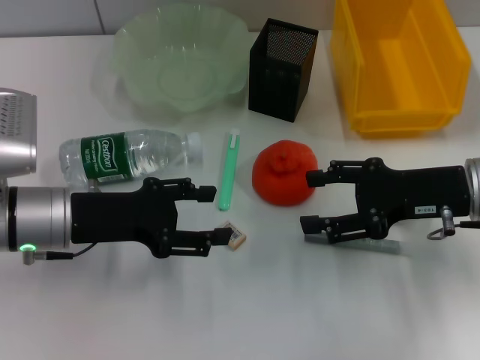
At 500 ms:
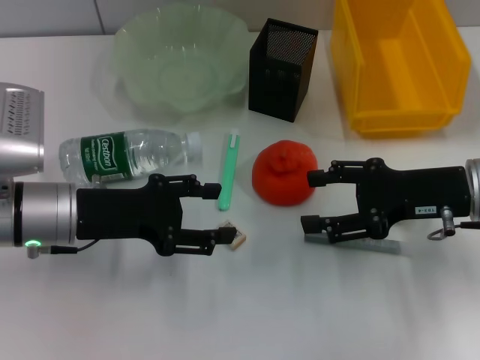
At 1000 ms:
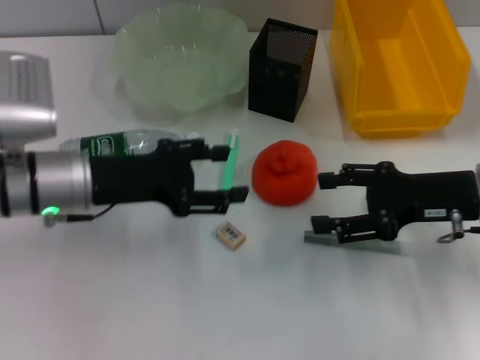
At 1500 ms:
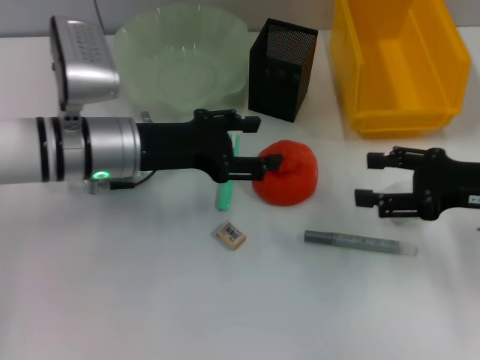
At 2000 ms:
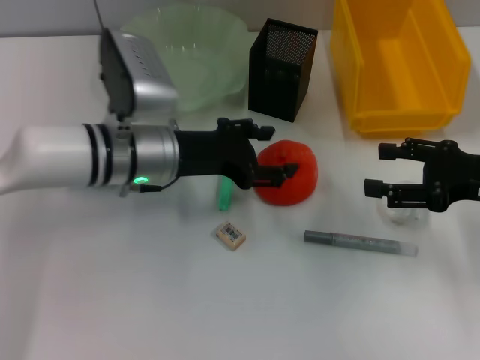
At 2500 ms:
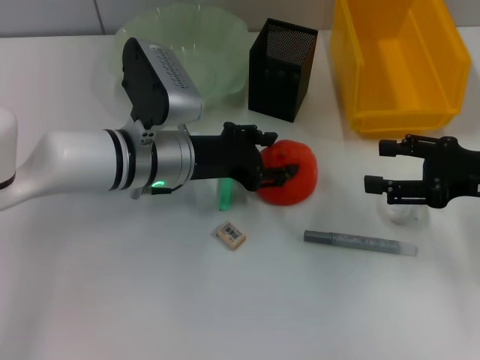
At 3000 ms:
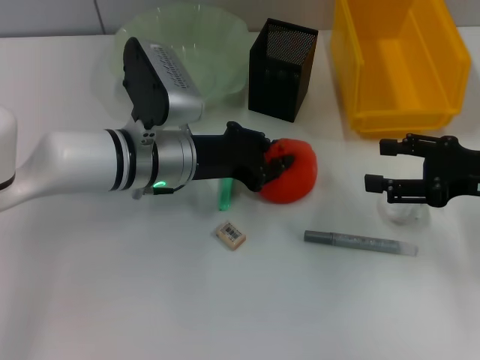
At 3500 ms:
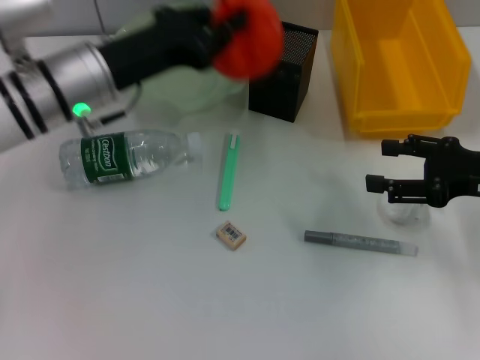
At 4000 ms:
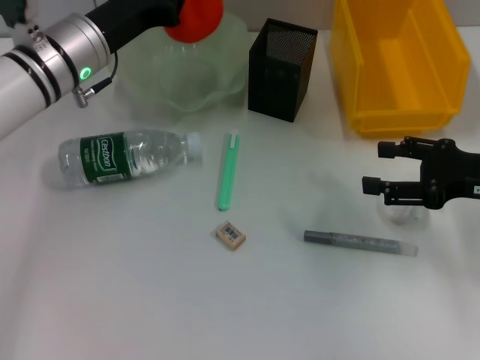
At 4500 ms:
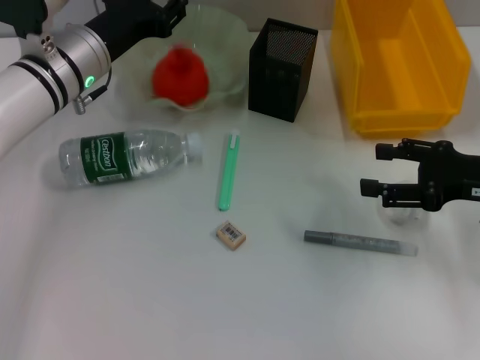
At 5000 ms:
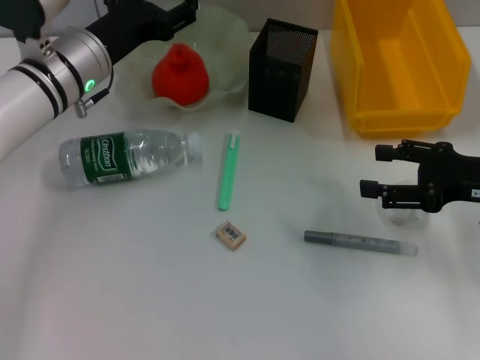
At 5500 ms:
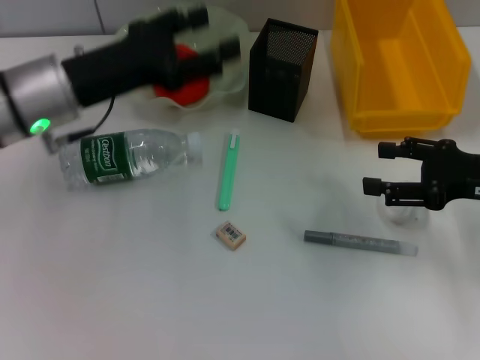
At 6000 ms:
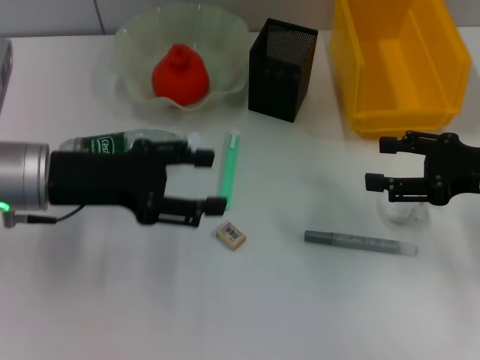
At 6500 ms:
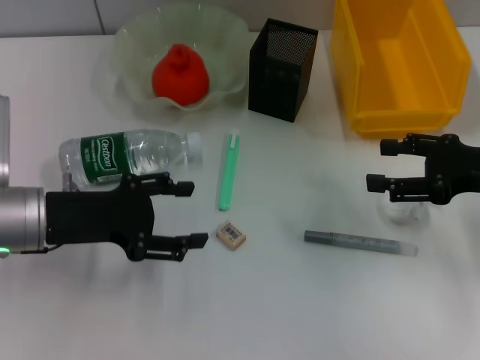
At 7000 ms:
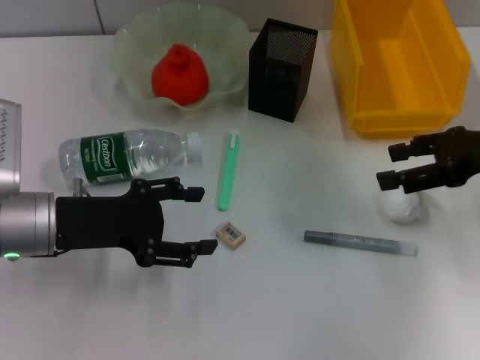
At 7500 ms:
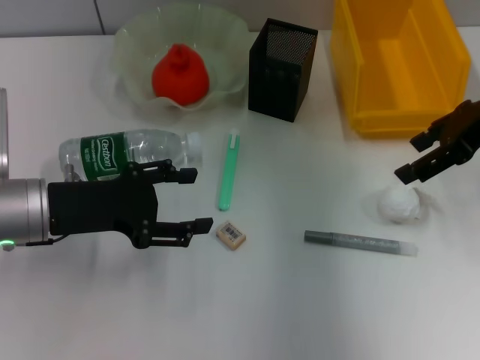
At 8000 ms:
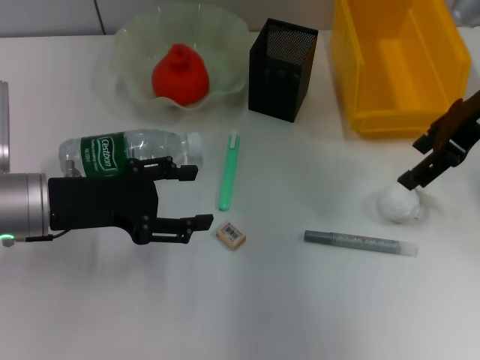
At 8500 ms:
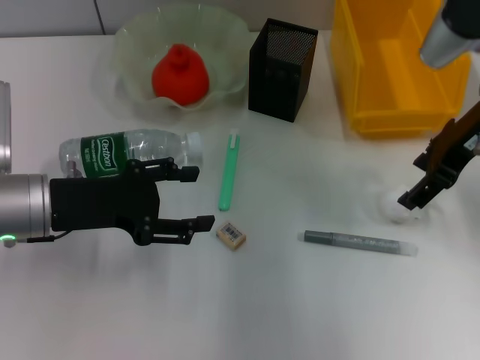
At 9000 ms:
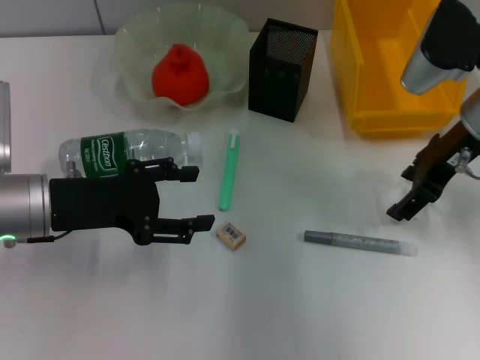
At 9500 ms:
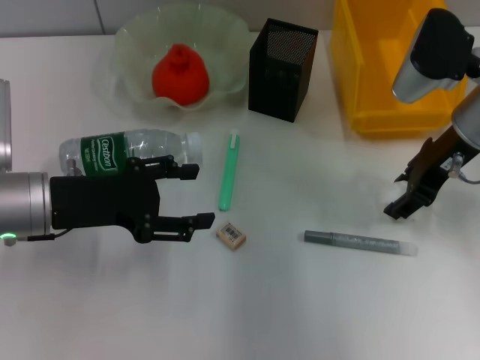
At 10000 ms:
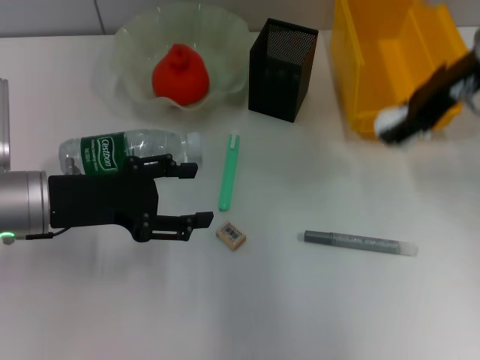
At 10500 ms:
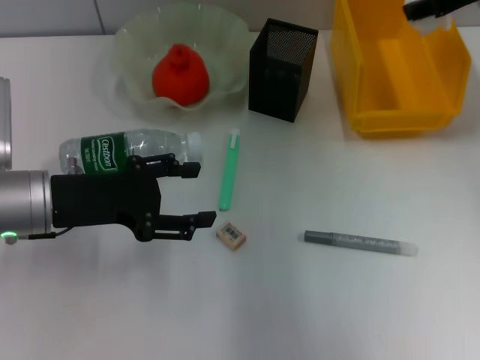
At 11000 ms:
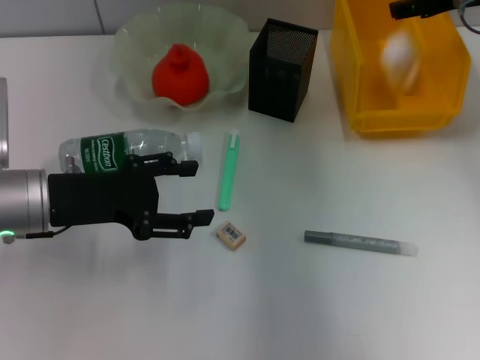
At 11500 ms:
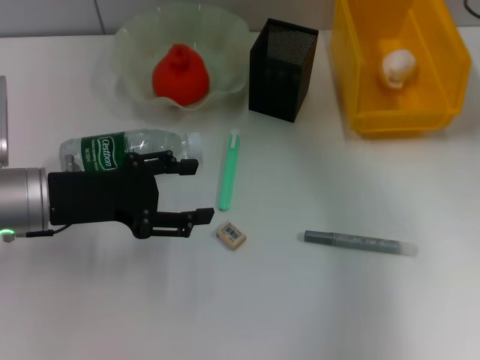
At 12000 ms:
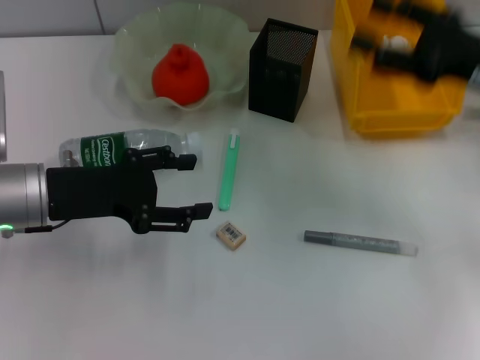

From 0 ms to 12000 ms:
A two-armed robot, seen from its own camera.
Step, from 0 ms to 2500 ms: Grab the orange with the left hand.
Step, from 3500 ms to 4500 ms: Place the orange into the fruit bowl with the left hand.
Step, from 5000 ms to 9000 ms: Grab the paper ball with the right hand.
Step, from 10000 ms to 11000 ms: Place the paper ball into the trash can with the right hand.
From 0 ms to 2000 ms: The right gripper is displaced to the right by some 5 cm. Meanwhile the left gripper goes roughly 10 cm to the right and forward.
From 2000 ms to 4000 ms: The left gripper heads forward and to the left, covering about 10 cm, and closes up.
From 4000 ms to 6000 ms: The left gripper is displaced backward by roughly 10 cm, and opens up.
From 6000 ms to 8000 ms: The right gripper heads upward, forward and to the left, covering some 15 cm.
From 8000 ms to 10000 ms: The right gripper goes downward and returns, some 5 cm each way.
From 10000 ms to 12000 ms: The right gripper is displaced downward and to the right by some 10 cm, and opens up.

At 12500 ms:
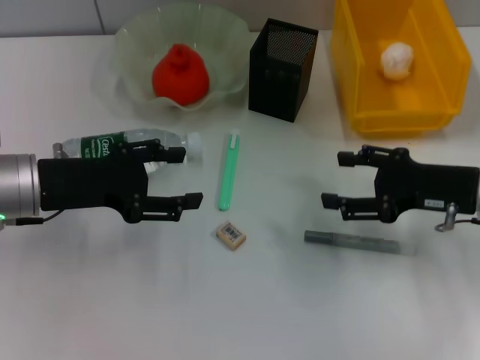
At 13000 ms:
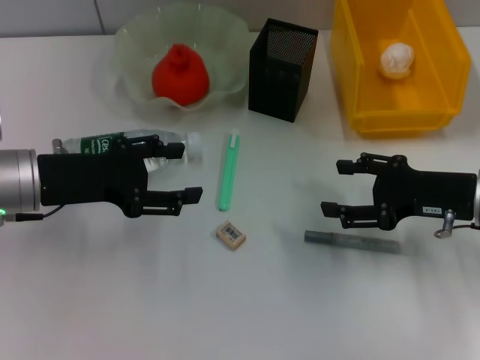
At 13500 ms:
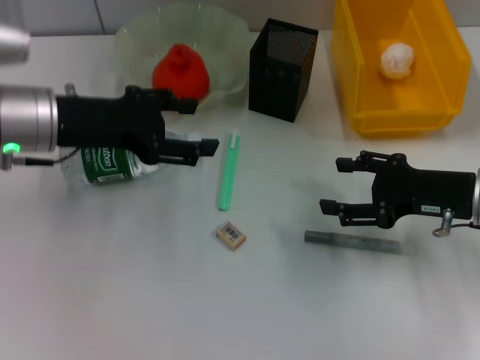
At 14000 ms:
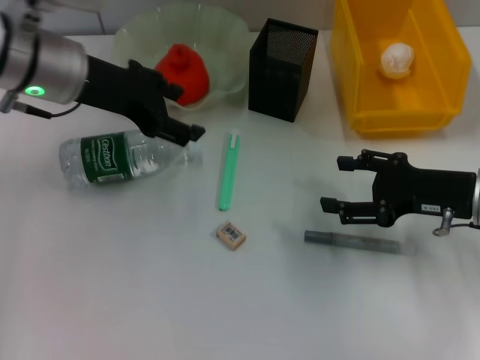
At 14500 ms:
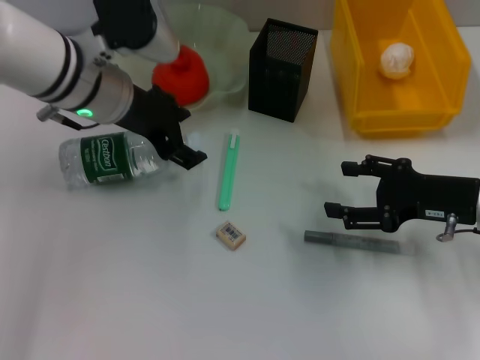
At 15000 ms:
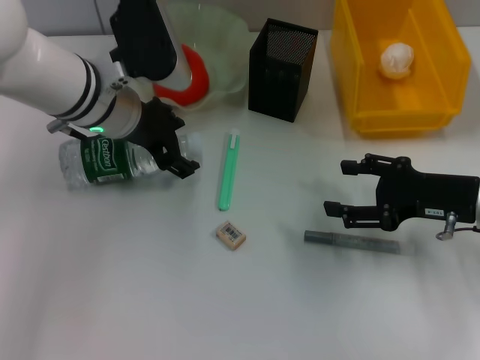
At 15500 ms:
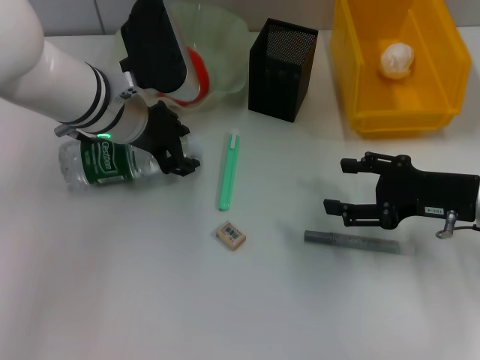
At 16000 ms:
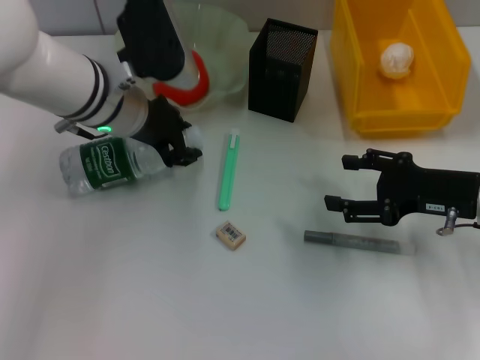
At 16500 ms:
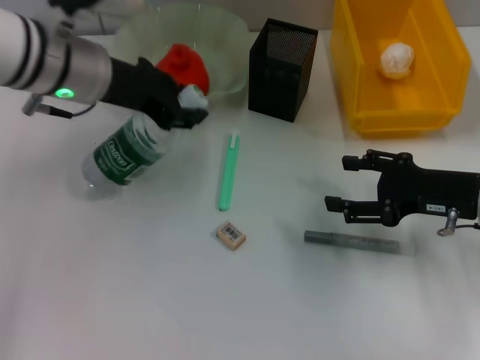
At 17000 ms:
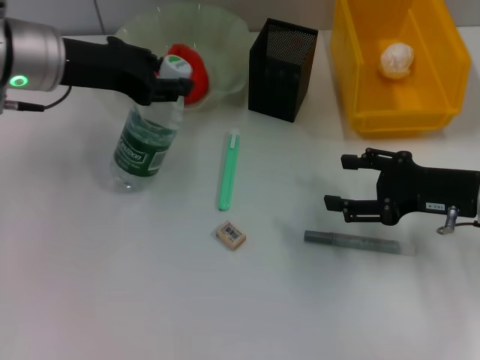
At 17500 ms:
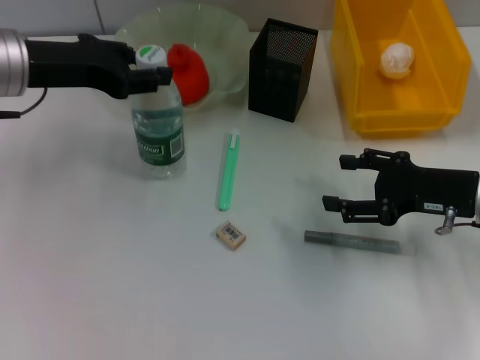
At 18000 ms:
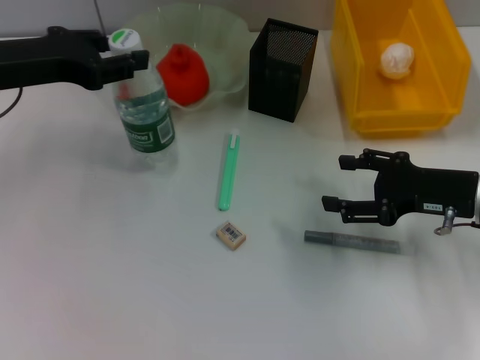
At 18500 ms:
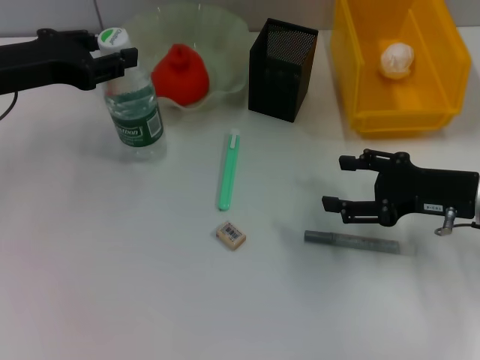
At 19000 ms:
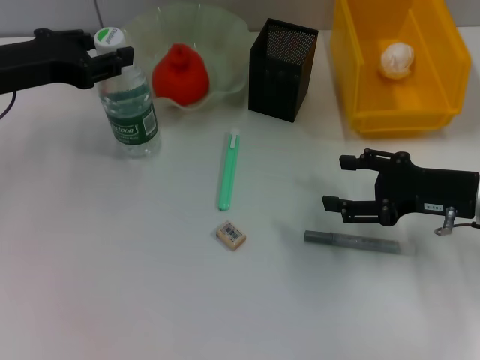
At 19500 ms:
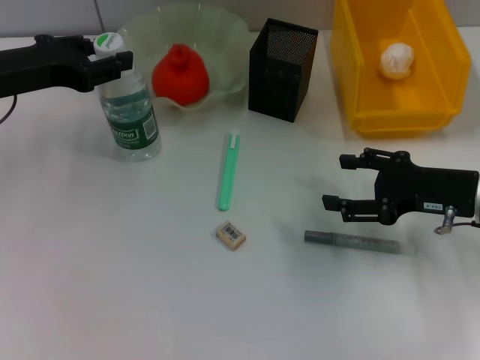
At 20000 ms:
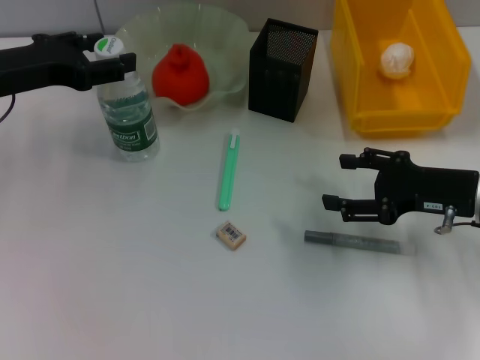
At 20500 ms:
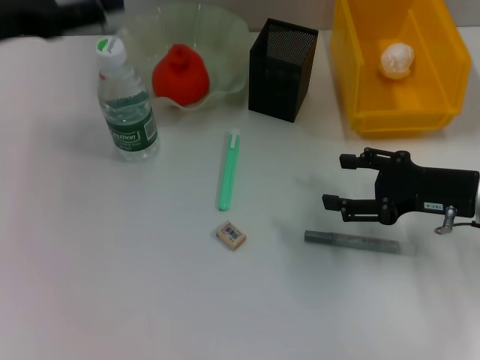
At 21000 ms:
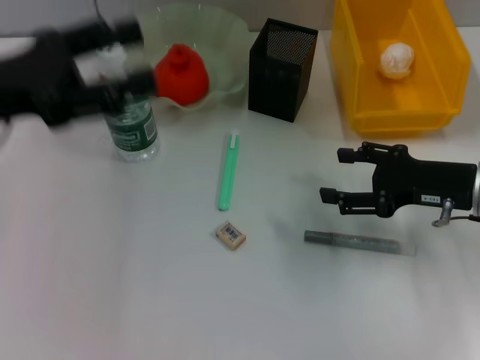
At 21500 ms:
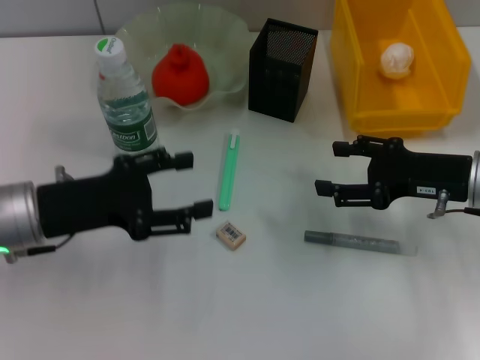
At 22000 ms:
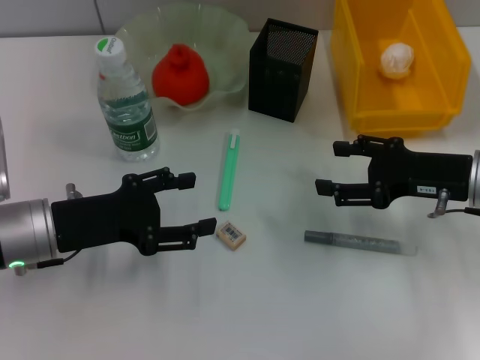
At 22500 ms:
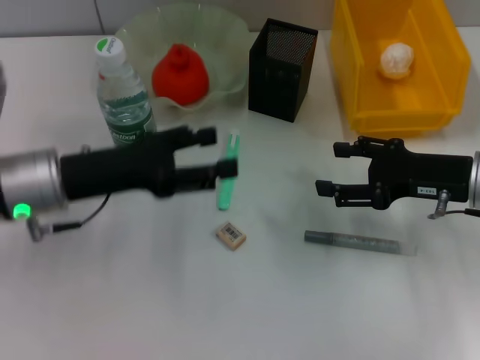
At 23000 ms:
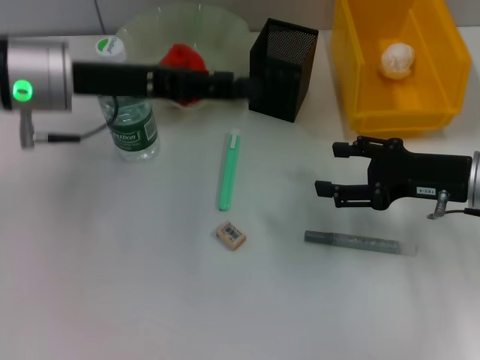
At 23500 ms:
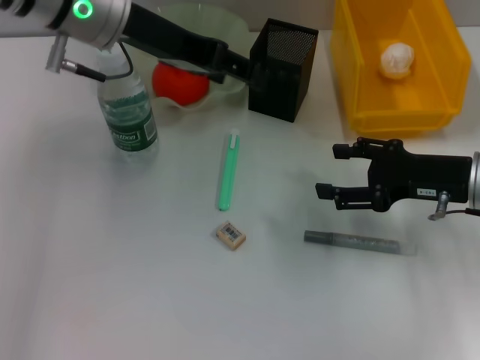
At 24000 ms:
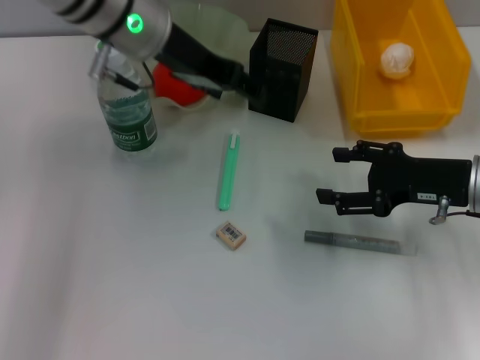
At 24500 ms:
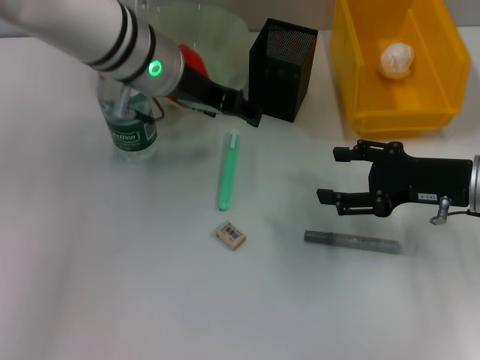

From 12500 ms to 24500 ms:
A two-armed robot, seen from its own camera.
Step, from 12500 ms to 15500 ms: Grab the water bottle with the left hand.
Step, from 16000 ms to 20000 ms: Place the water bottle on the table with the left hand.
From 12500 ms to 14500 ms: The left gripper travels to the right, forward and upward by roughly 15 cm.
From 14500 ms to 16500 ms: The left gripper closes its fingers.
From 16500 ms to 18500 ms: The left gripper moves to the left, about 10 cm.
From 18500 ms to 20500 ms: The left gripper opens its fingers.
From 20500 ms to 22500 ms: The left gripper shifts about 15 cm downward, backward and to the right.
From 22500 ms to 24500 ms: The left gripper is displaced to the right, forward and upward by approximately 20 cm.

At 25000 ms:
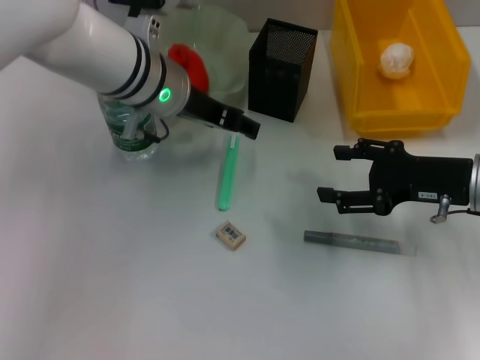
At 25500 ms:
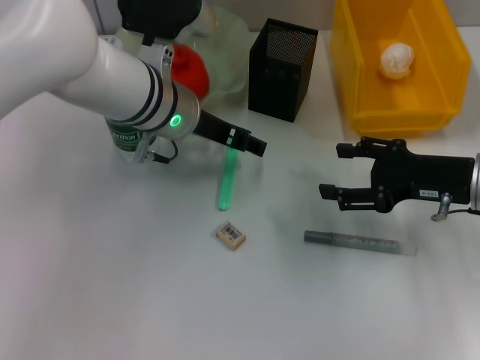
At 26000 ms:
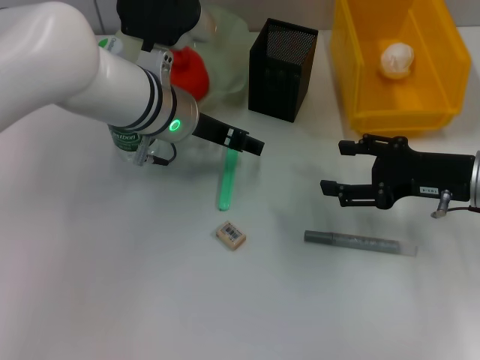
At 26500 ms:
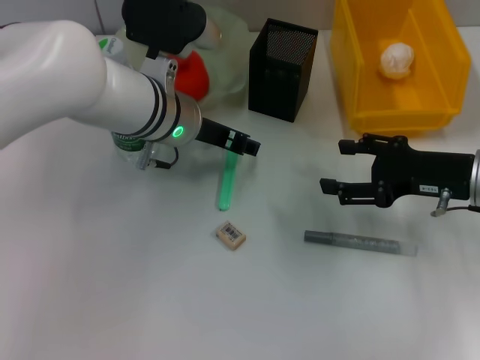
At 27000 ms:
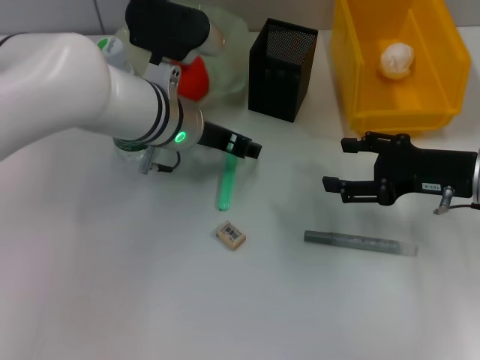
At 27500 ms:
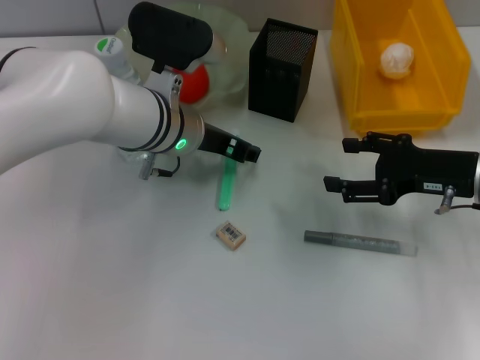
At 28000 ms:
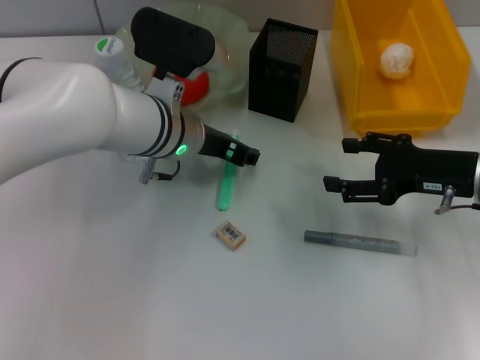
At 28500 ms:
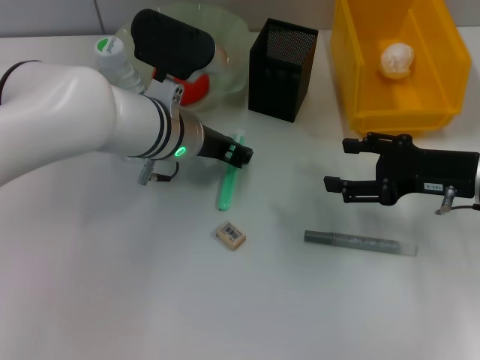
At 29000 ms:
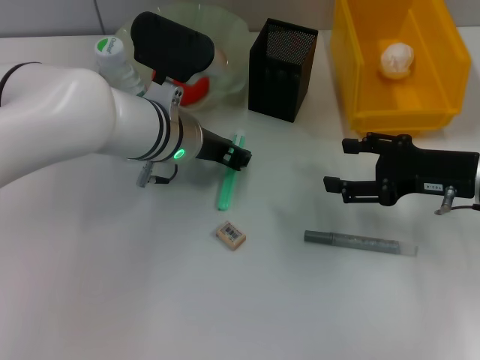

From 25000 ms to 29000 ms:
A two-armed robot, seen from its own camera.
From 25000 ms to 27000 ms: The grippers make only small movements.
From 27000 ms to 29000 ms: The left gripper closes up.
